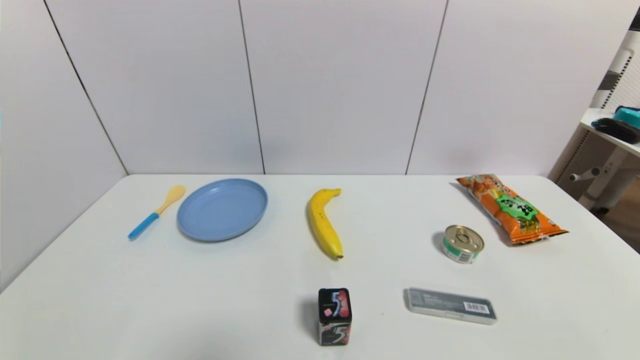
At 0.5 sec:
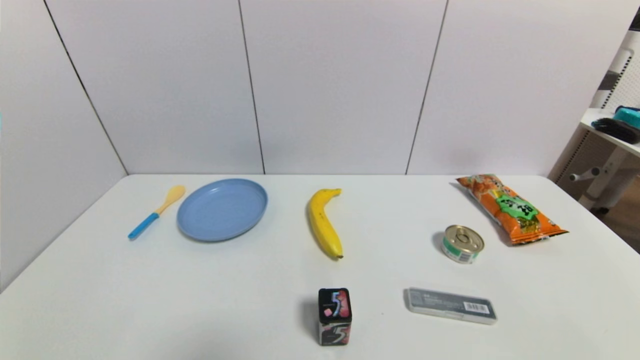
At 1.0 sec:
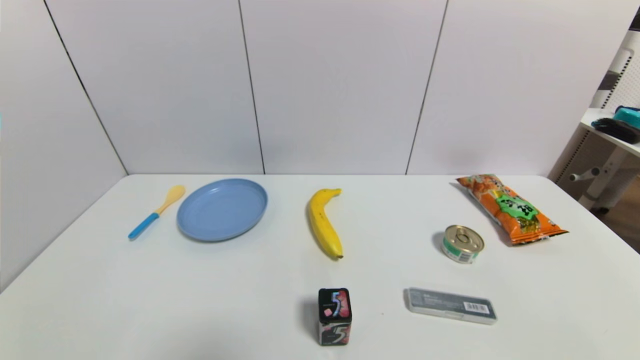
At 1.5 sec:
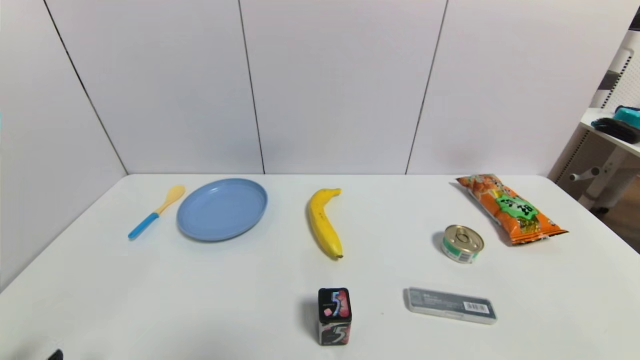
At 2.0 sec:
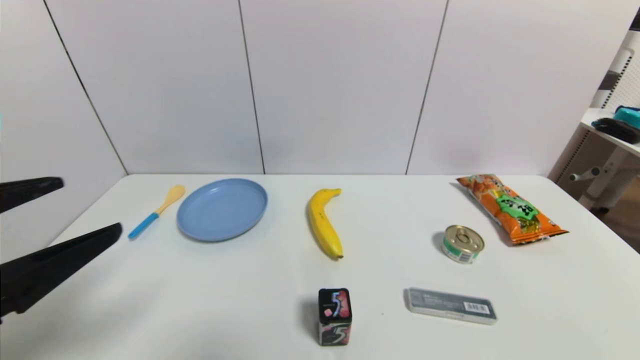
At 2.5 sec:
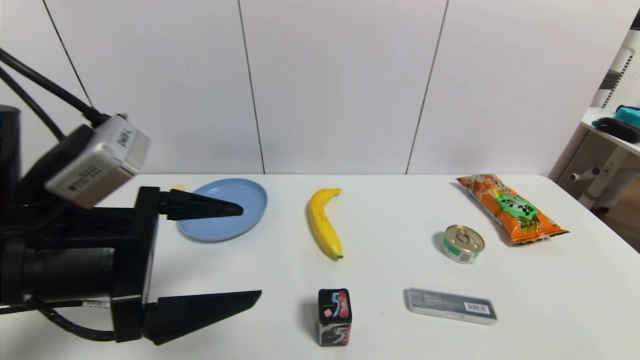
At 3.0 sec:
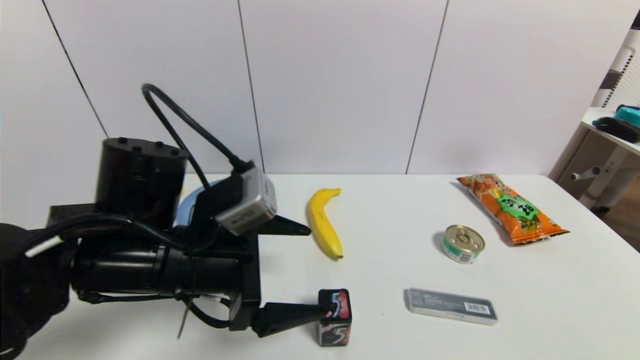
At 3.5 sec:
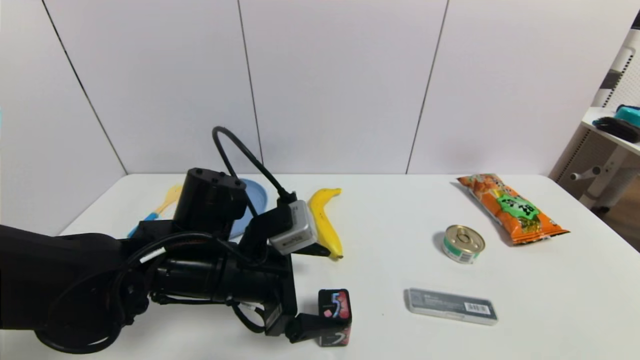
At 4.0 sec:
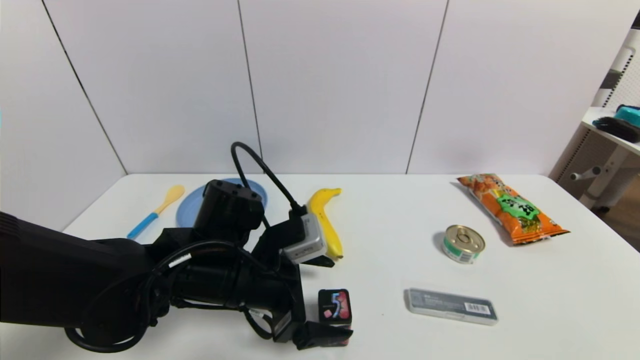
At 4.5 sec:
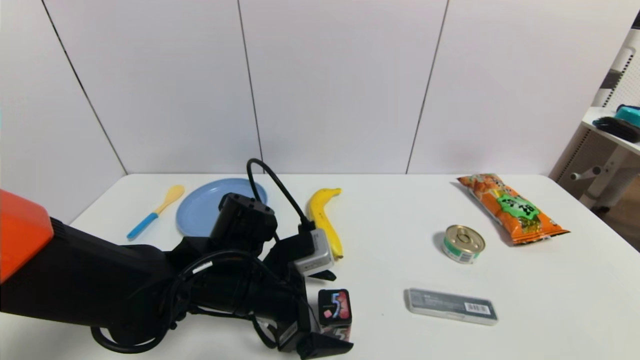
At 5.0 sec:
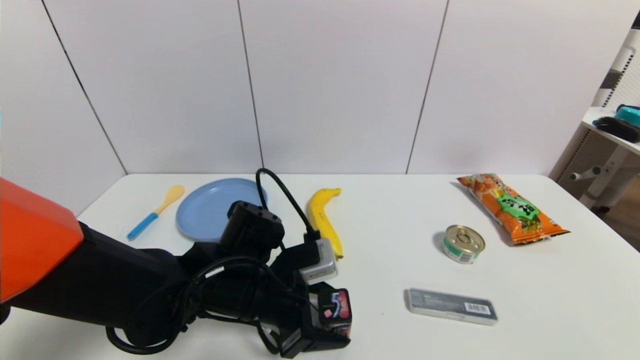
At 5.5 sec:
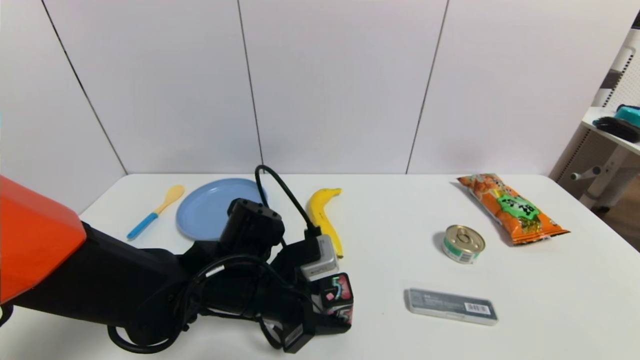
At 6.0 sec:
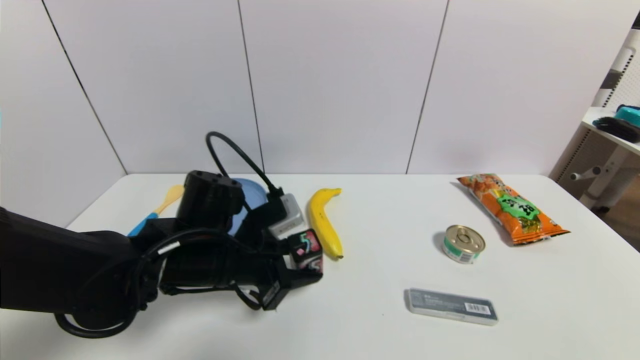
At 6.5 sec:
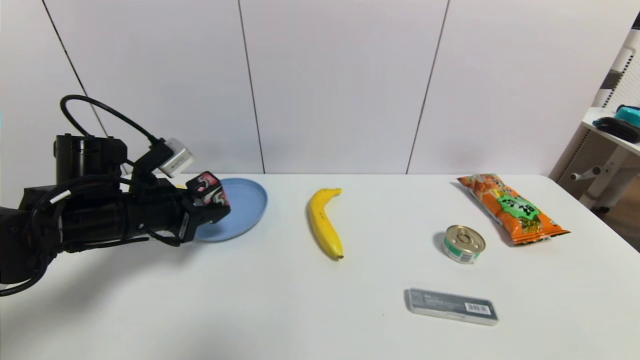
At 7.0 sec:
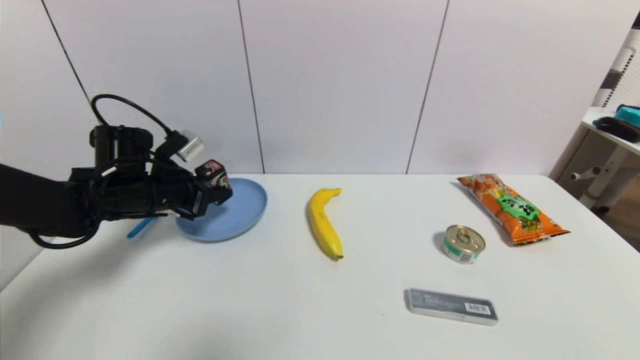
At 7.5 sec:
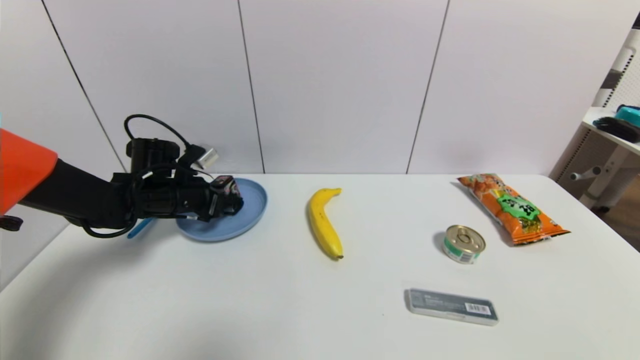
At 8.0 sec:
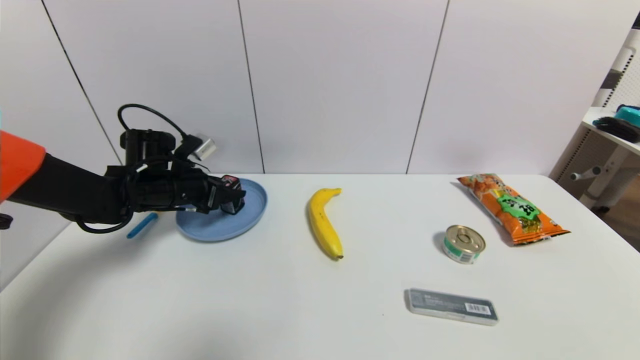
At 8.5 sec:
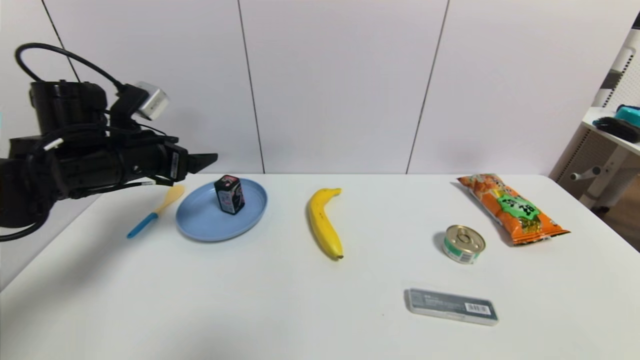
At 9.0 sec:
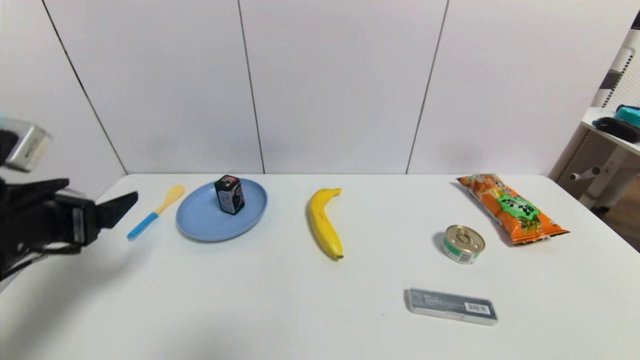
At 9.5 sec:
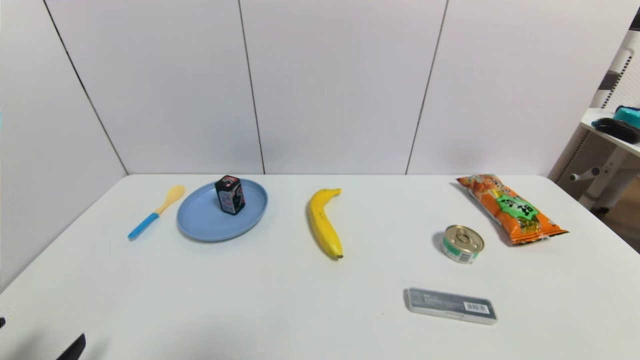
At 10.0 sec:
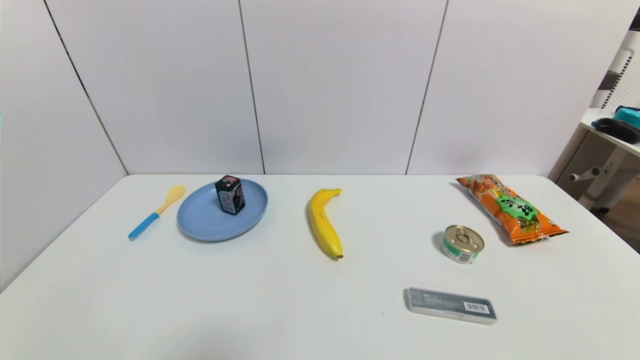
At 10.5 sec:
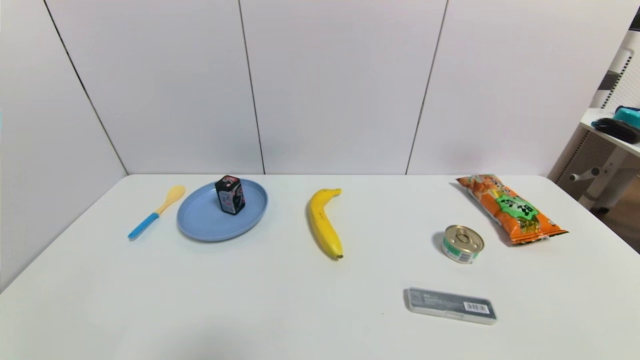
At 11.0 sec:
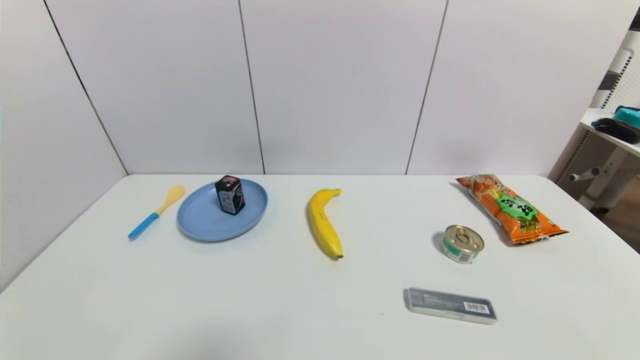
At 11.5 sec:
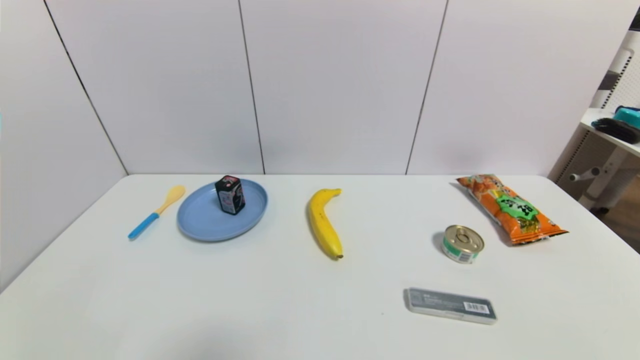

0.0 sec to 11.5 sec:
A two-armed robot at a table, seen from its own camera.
Task of the whole recording: use a gripper to pick the target object and place on the blue plate.
Step, 0.0 sec to 5.0 sec: Grasp the square chewing gum with the left gripper.
Step, 5.5 sec to 8.0 sec: Place the square chewing gum on the blue plate with the left gripper.
0.0 sec to 2.0 sec: The left gripper shifts roughly 20 cm upward and forward.
2.0 sec to 4.0 sec: The left gripper goes about 25 cm to the right, forward and downward.
4.0 sec to 6.0 sec: The left gripper closes.
6.0 sec to 7.5 sec: The left gripper moves forward and to the left, some 20 cm.
7.5 sec to 9.5 sec: The left gripper goes roughly 35 cm backward, and opens up.
9.5 sec to 11.5 sec: The left gripper shifts by approximately 5 cm.
